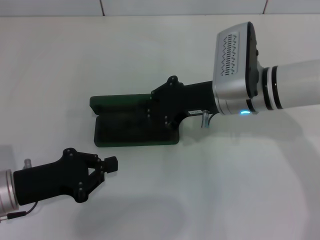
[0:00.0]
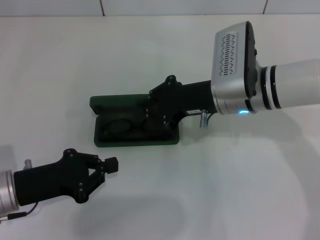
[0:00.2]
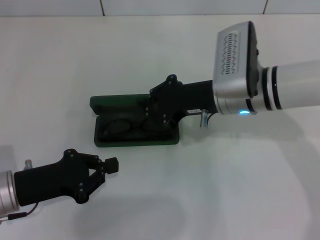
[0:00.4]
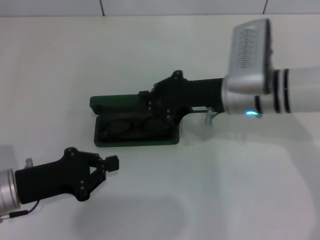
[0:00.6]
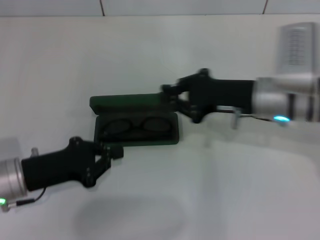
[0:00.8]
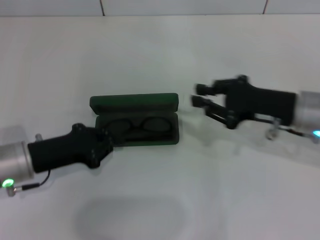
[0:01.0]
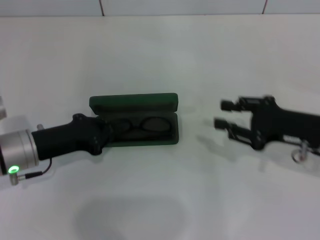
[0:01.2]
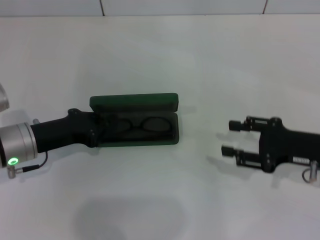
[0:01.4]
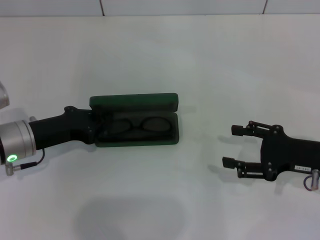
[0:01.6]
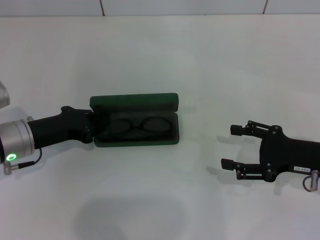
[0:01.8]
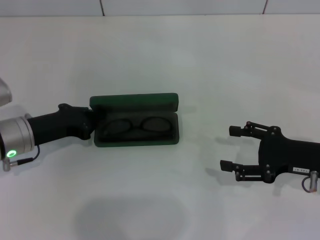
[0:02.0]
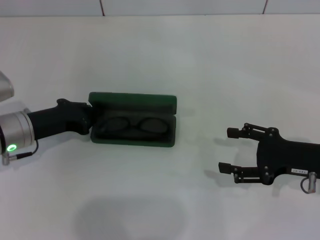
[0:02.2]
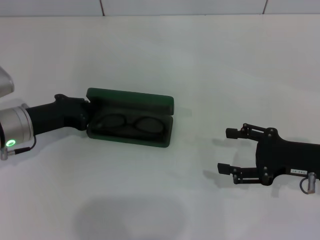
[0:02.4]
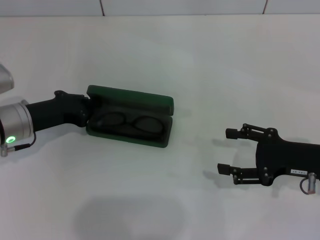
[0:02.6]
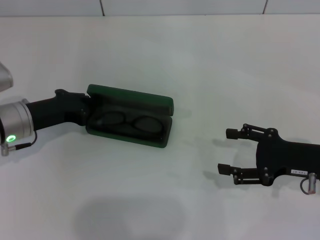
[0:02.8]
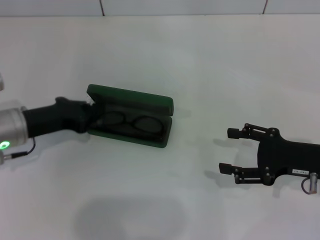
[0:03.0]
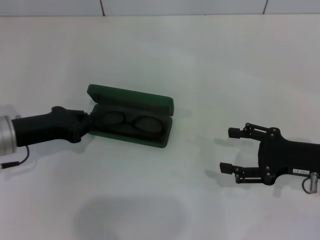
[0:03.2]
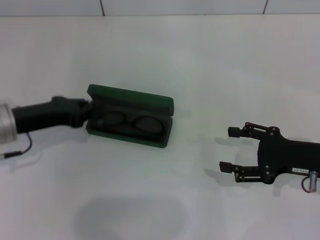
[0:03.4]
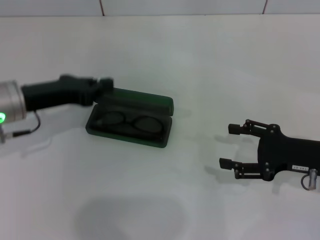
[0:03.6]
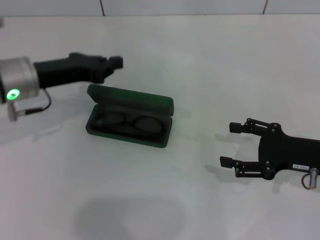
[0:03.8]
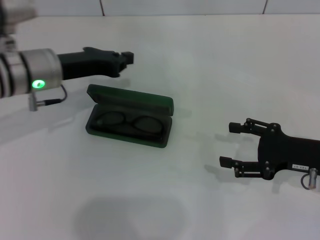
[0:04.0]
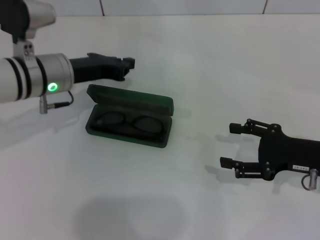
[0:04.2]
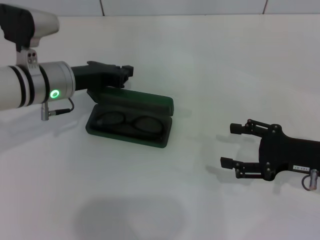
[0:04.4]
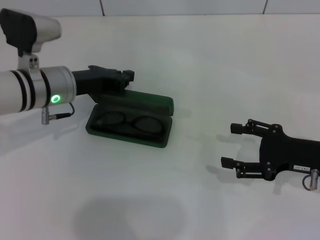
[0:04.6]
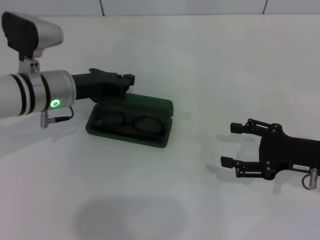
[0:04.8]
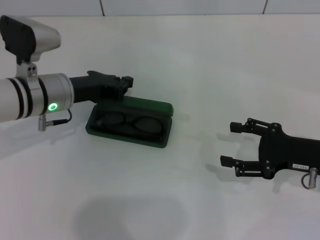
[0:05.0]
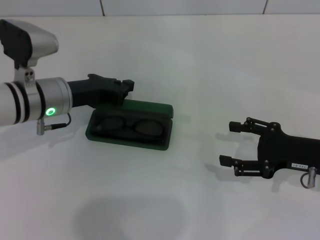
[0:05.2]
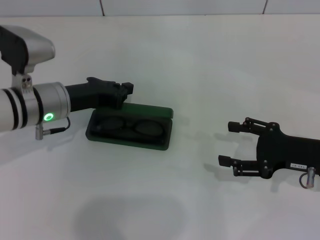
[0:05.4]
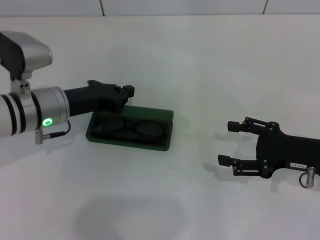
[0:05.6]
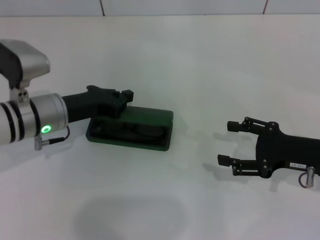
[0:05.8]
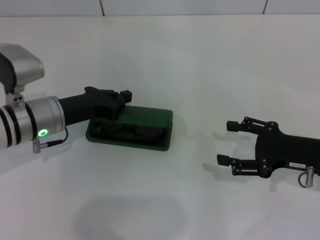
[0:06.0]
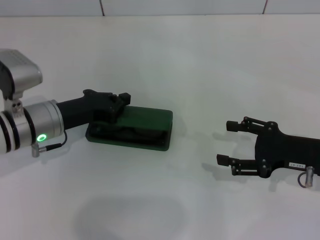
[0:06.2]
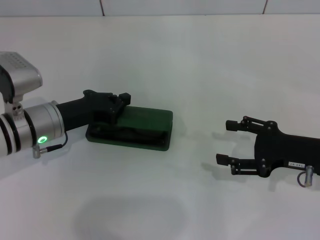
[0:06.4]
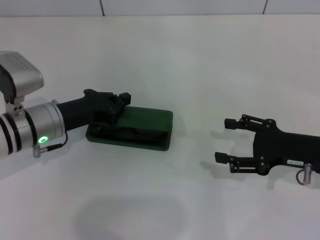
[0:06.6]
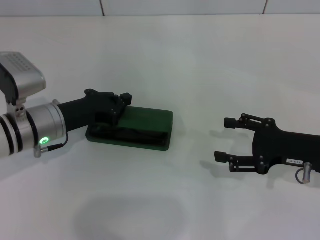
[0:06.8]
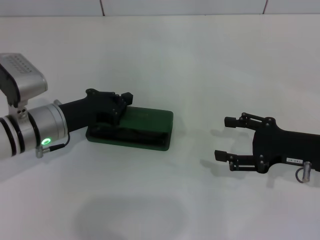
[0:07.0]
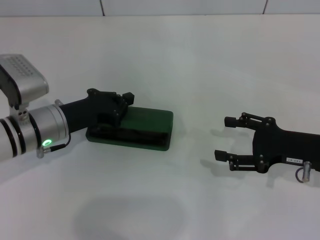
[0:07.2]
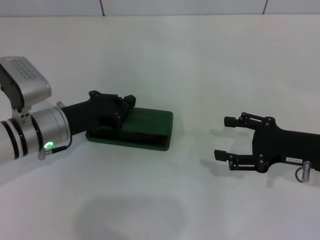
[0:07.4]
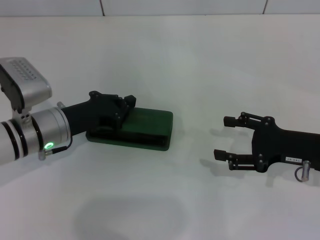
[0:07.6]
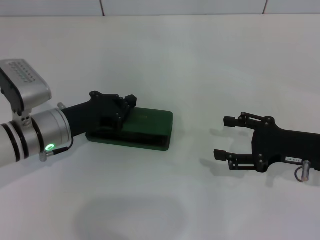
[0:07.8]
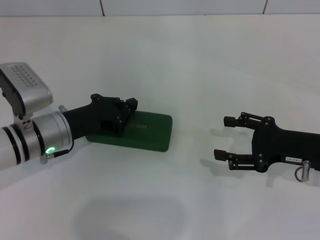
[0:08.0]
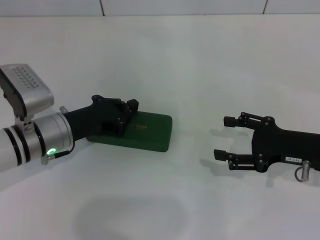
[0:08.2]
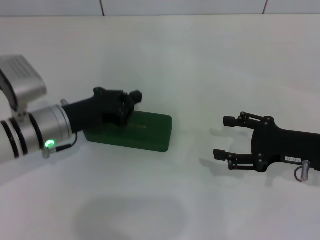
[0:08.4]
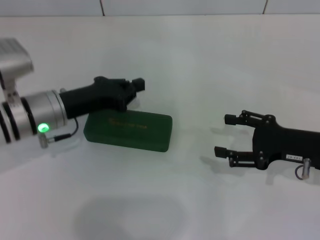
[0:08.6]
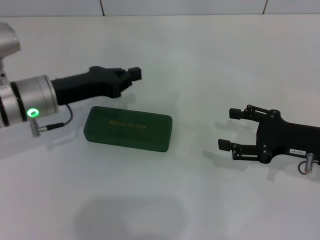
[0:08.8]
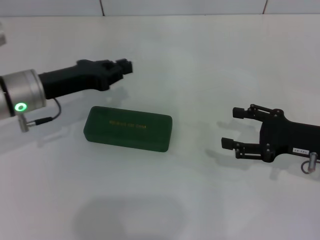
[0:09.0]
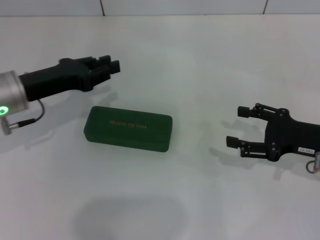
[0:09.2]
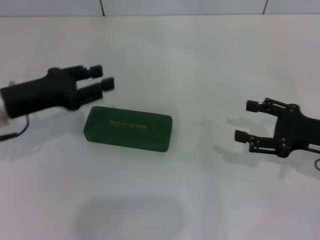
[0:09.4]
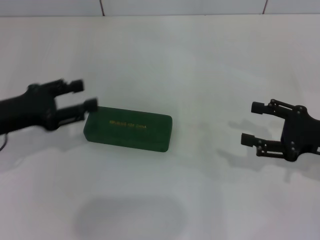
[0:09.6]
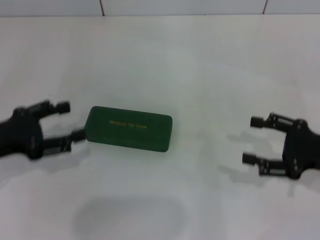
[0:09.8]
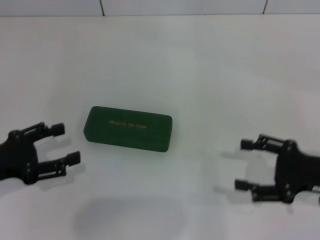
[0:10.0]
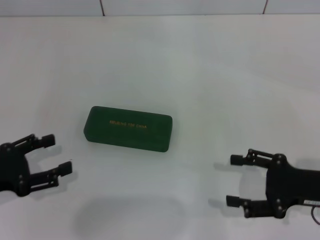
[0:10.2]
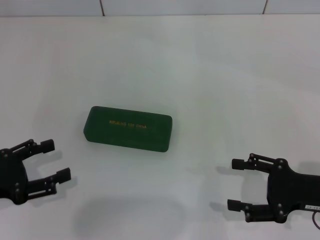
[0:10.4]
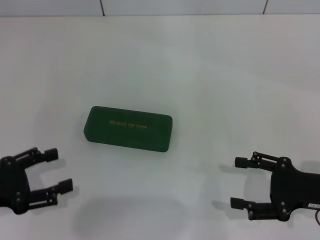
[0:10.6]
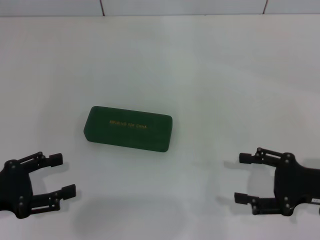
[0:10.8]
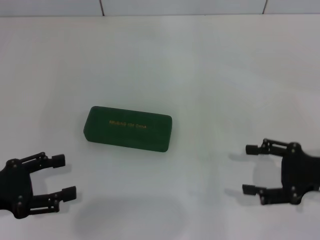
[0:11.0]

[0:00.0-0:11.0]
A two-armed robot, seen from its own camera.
Step, 0:00.4 to 0:08.4: Close the glasses case with your left hand.
0:00.0 to 0:01.6: The left gripper travels forward by roughly 5 cm, while the right gripper moves to the right and backward, approximately 20 cm, and opens up.
0:01.6 to 0:03.2: The grippers move only a little.
0:03.2 to 0:04.8: The left gripper shifts approximately 10 cm to the right and forward.
0:04.8 to 0:06.2: The left gripper moves approximately 5 cm.
0:06.2 to 0:07.8: The grippers move only a little.
0:07.8 to 0:09.4: The left gripper goes roughly 10 cm upward and to the left, and opens.
0:09.4 to 0:11.0: The left gripper heads backward and to the left, covering approximately 15 cm, and opens up.

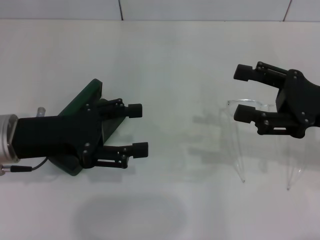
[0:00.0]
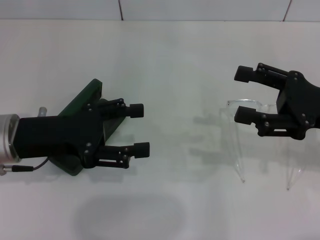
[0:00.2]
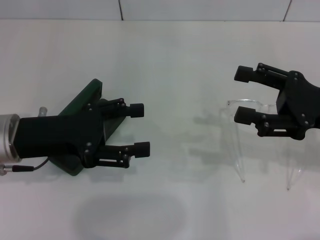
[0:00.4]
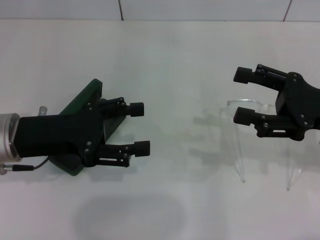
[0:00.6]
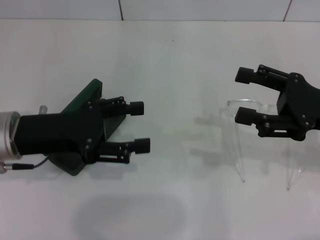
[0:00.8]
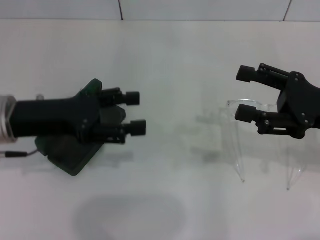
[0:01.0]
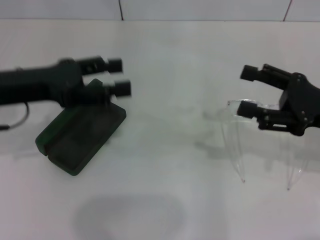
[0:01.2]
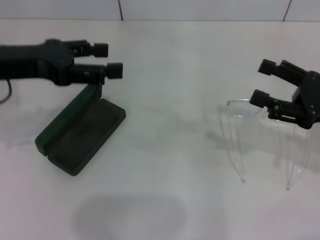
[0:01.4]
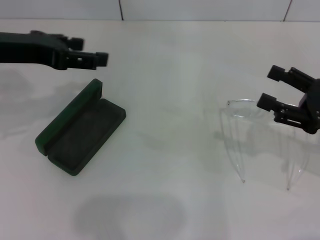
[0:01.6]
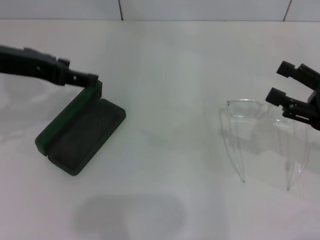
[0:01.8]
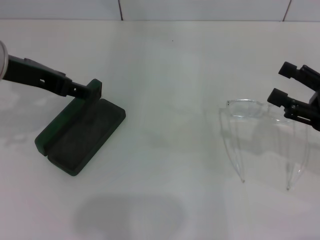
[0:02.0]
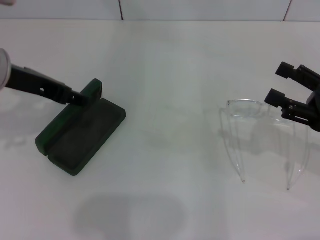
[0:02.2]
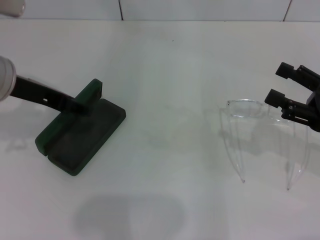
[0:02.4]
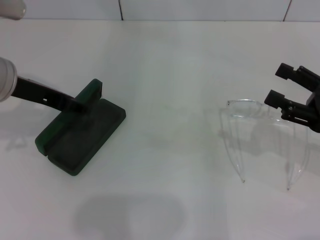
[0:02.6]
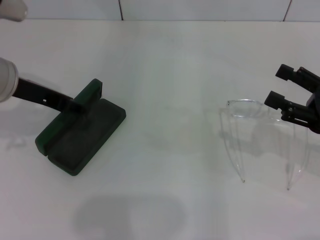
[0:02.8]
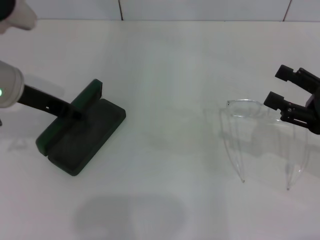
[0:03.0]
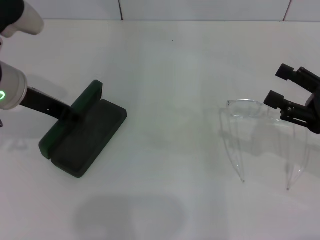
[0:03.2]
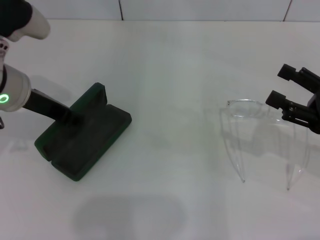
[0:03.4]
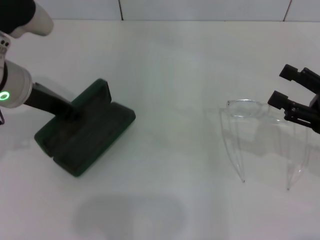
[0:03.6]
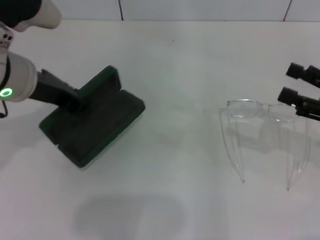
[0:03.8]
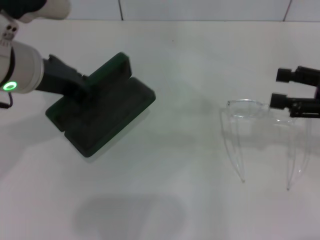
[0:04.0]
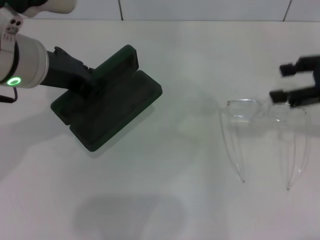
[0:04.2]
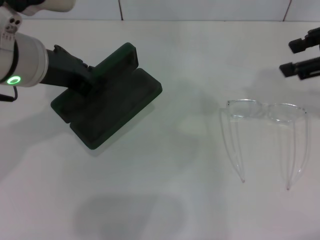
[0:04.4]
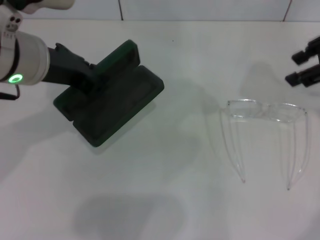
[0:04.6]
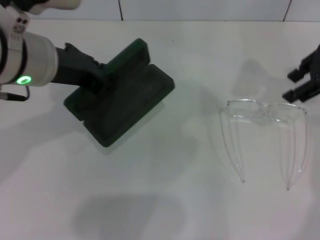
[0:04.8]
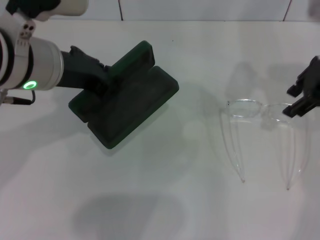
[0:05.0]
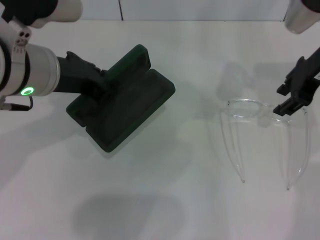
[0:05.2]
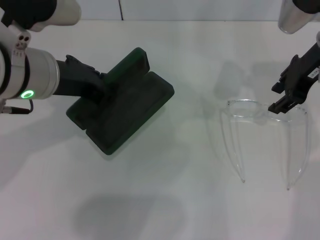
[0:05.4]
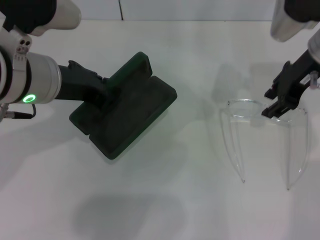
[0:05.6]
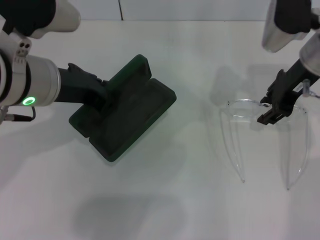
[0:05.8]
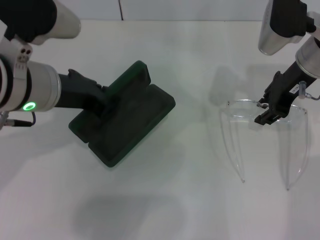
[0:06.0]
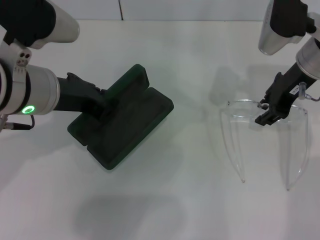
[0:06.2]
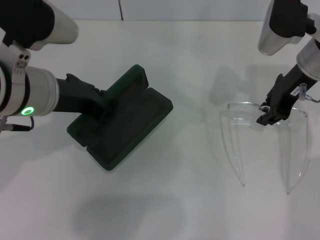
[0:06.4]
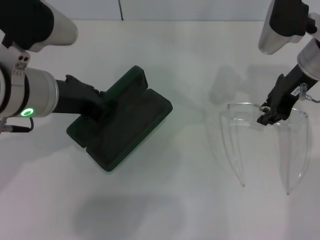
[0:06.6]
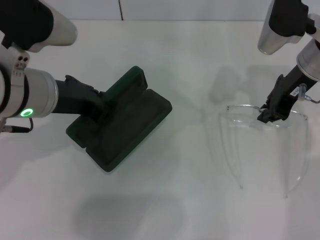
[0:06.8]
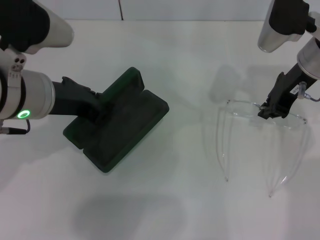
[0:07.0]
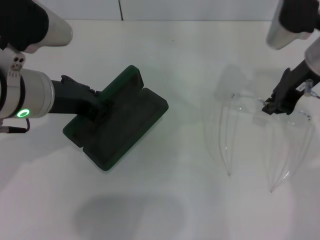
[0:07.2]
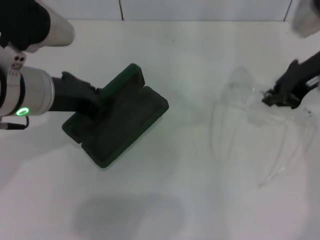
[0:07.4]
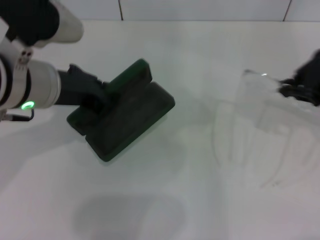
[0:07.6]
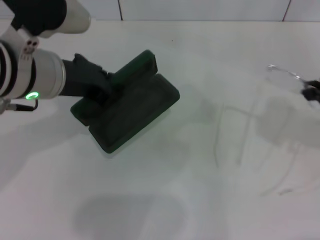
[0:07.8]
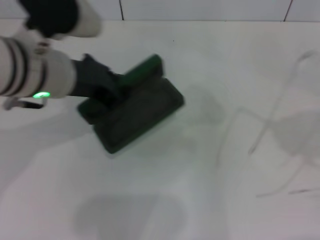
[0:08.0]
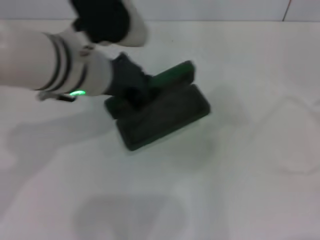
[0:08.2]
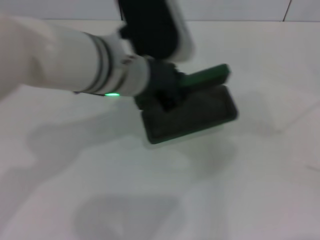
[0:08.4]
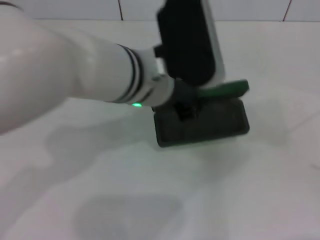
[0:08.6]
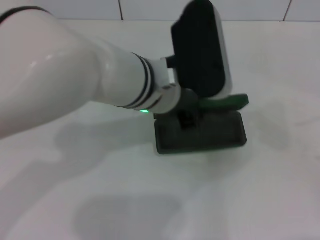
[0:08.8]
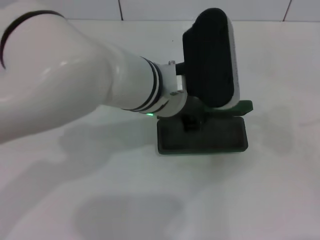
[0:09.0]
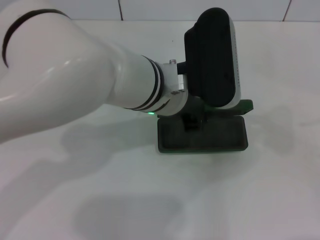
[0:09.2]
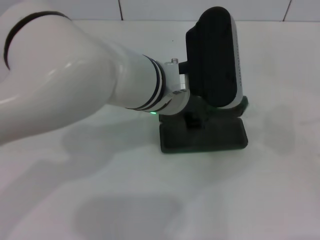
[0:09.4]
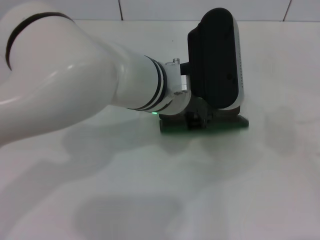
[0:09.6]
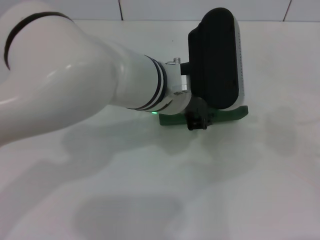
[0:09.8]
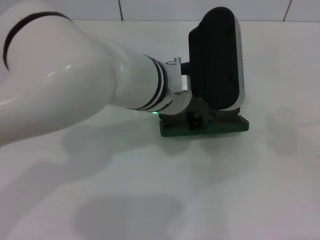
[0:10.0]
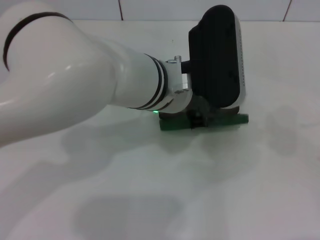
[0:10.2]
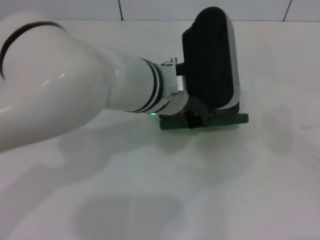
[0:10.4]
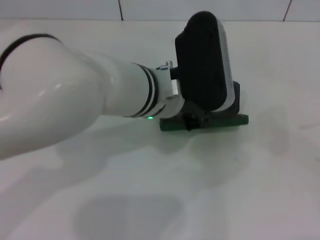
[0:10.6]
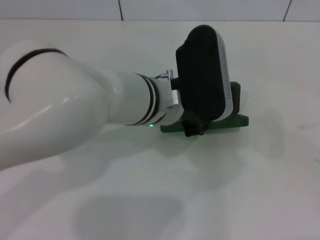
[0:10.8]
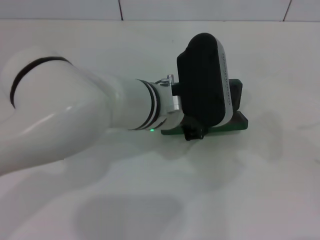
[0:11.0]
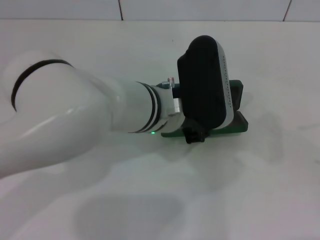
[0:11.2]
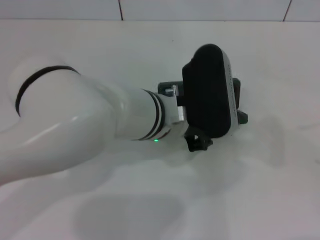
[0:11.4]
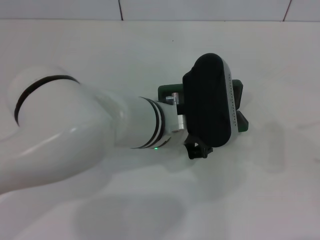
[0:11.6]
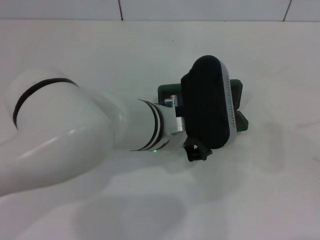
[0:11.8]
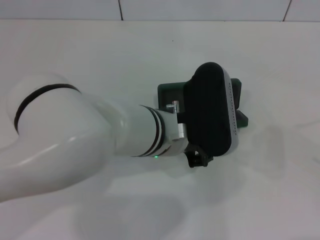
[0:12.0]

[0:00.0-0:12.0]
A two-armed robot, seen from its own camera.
Step, 0:00.0 to 0:03.4: Grab the glasses case with your left hand.
Step, 0:03.6 to 0:06.6: Grab the eyeglass frame with your right hand.
0:00.0 to 0:01.6: The right gripper shifts by approximately 5 cm; the left gripper goes some 10 cm upward and forward.
0:01.6 to 0:03.0: The left gripper moves about 5 cm.
0:03.0 to 0:04.4: The right gripper heads upward and forward, covering some 20 cm. The left gripper goes some 10 cm upward and to the right, and closes up.
0:04.4 to 0:06.0: The right gripper shifts some 15 cm downward, to the left and forward, and closes its fingers.
0:06.0 to 0:07.6: The right gripper is displaced backward, to the right and upward by some 10 cm, and closes up.
0:07.6 to 0:09.0: The right gripper shifts approximately 30 cm backward and to the right. Meanwhile the left gripper is displaced to the right by about 15 cm.
0:09.0 to 0:10.4: The grippers stay close to where they were, moving slightly.
0:10.4 to 0:12.0: The left gripper changes place by some 5 cm.
